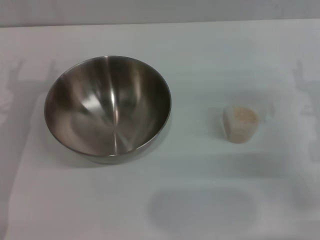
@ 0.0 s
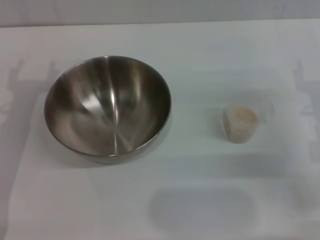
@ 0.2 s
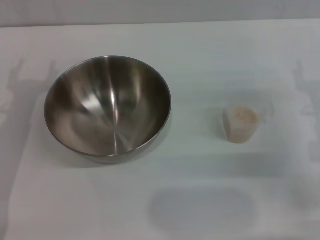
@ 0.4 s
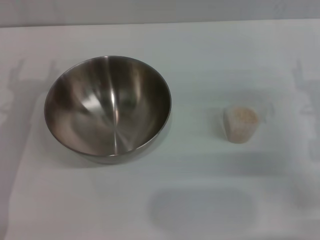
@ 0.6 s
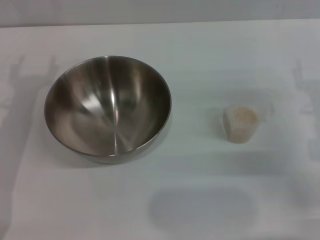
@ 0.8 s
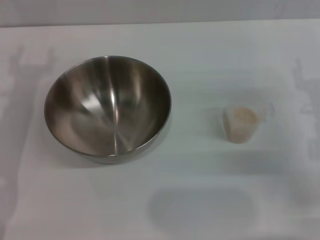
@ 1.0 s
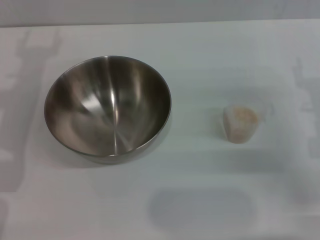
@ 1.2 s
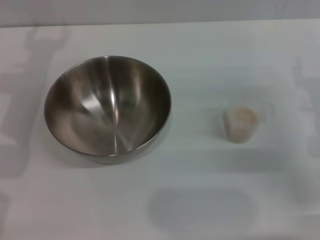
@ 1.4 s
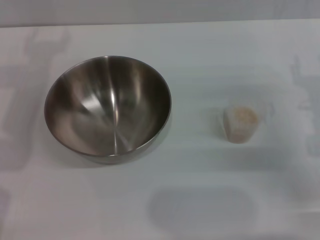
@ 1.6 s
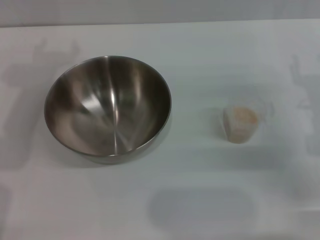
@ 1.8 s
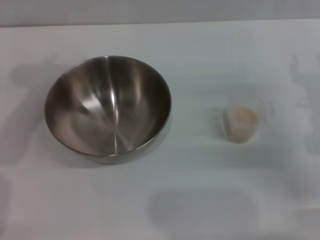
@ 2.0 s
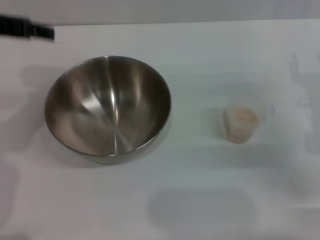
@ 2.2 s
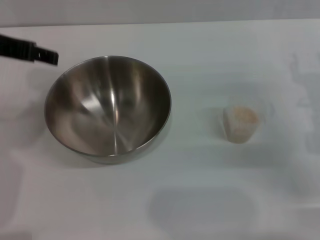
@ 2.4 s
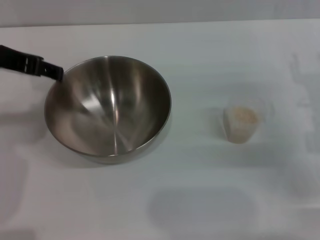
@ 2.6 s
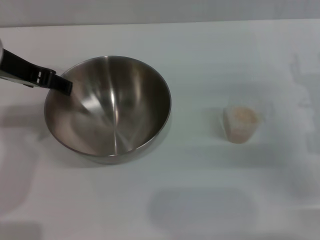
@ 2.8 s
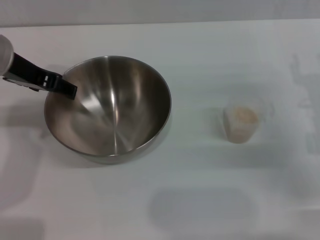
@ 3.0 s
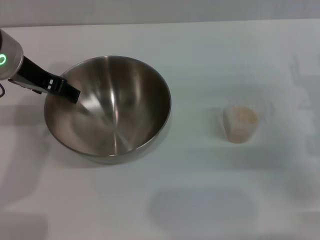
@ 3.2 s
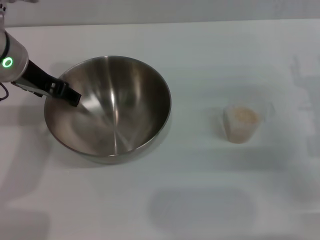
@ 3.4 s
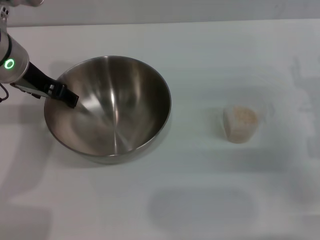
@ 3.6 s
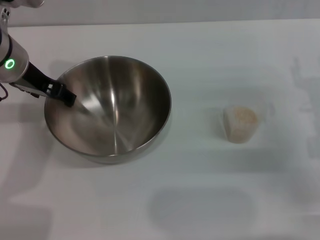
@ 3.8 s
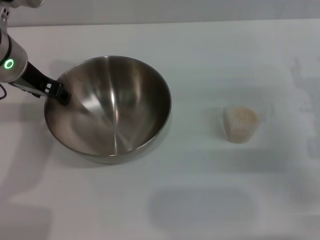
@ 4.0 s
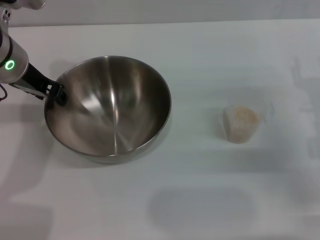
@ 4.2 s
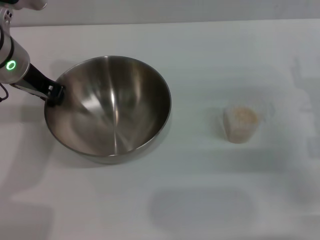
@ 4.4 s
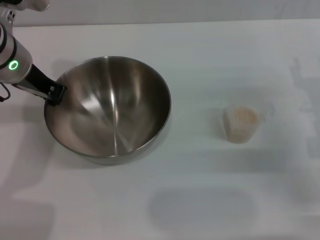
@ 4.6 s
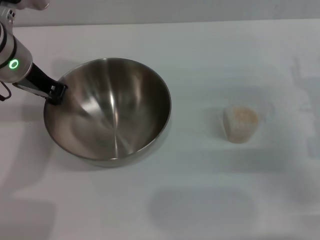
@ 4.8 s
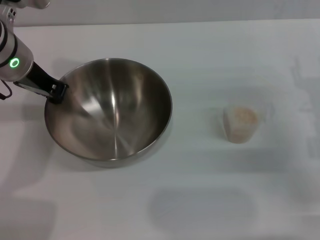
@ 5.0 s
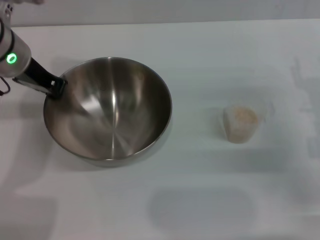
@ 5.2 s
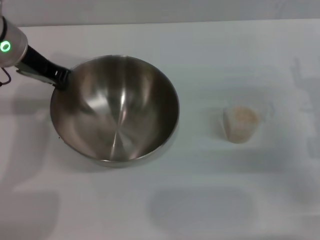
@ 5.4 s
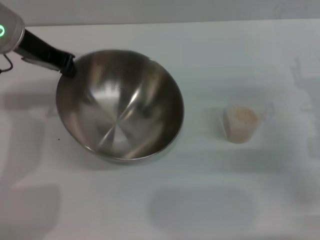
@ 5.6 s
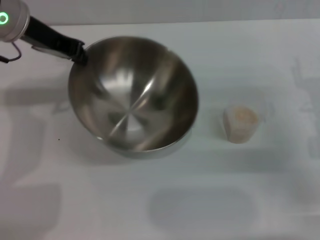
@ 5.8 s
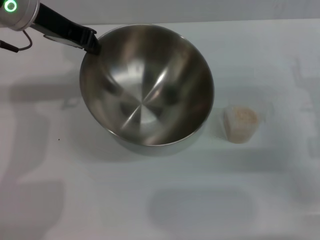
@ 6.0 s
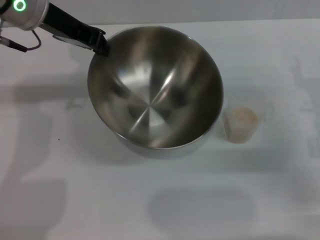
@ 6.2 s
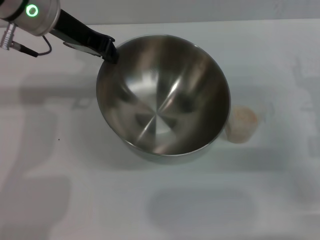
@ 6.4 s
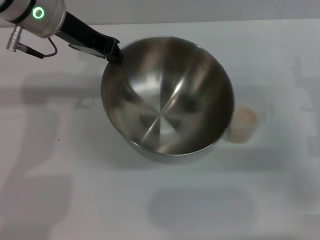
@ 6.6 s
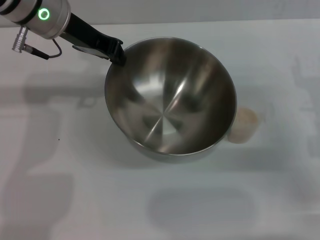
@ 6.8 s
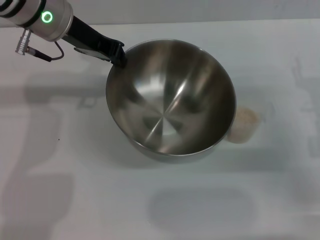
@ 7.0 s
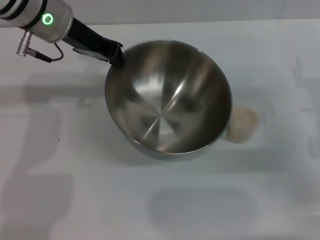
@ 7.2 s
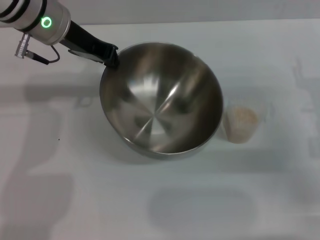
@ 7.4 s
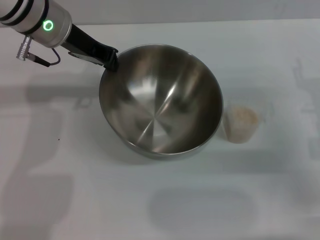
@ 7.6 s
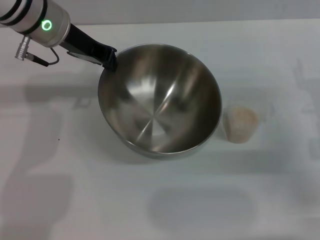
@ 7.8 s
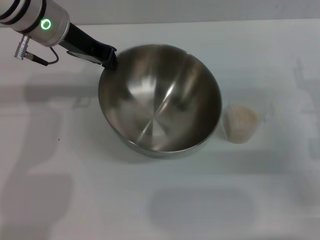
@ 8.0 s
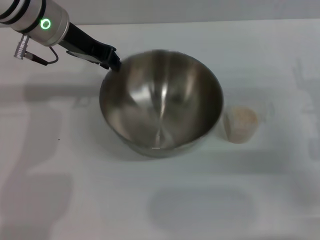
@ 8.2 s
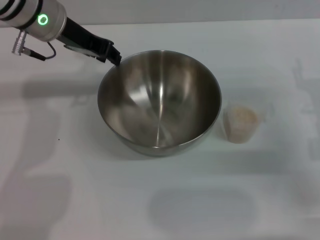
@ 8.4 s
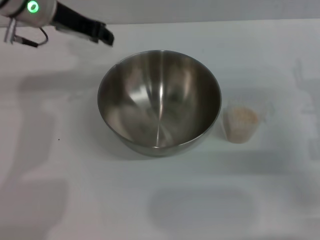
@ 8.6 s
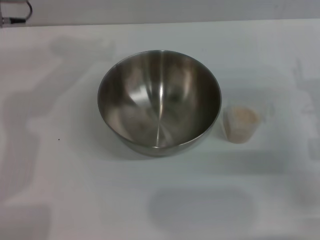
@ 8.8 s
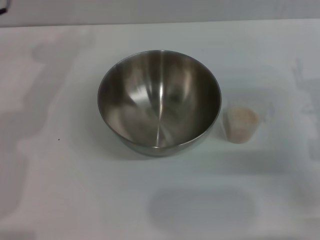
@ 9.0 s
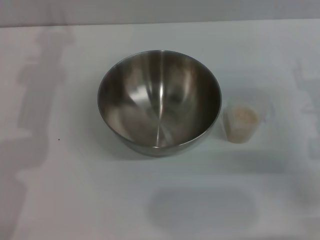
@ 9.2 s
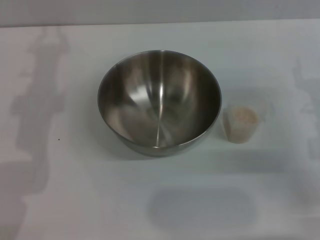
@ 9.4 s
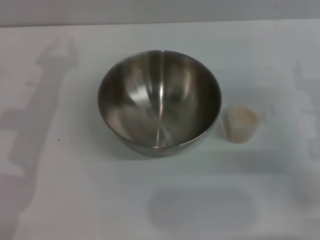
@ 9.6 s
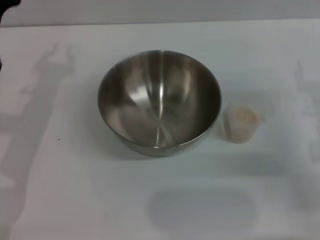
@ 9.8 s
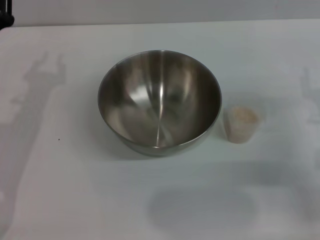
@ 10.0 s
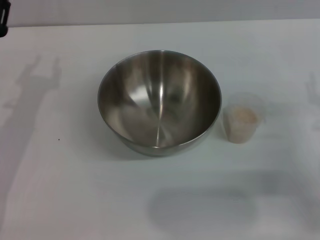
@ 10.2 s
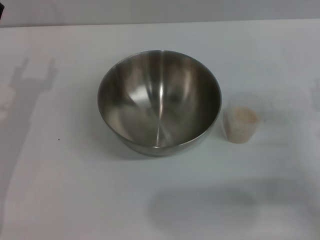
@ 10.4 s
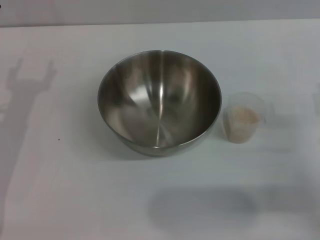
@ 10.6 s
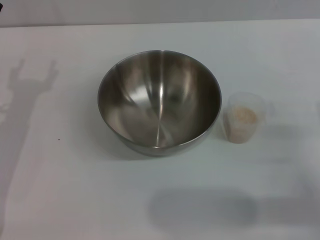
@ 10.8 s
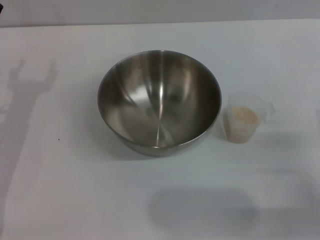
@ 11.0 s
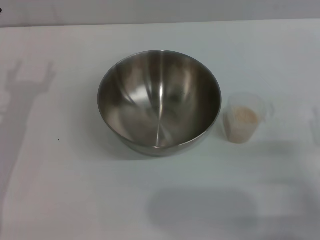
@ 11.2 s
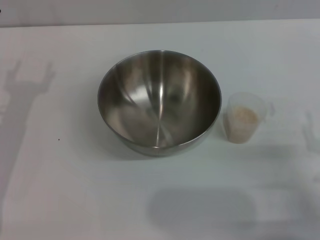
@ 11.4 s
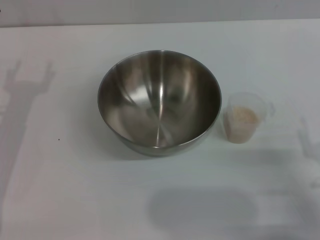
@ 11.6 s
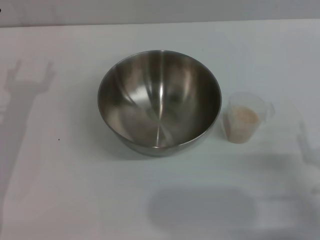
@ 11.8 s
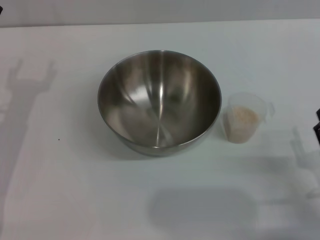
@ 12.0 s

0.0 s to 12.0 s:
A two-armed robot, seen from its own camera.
Task of the whole recording: Place the bowl in the middle of the table with one hand and pour the rice from the grain cup into it with the other hand.
Step, 0.0 to 6.4 s: Pick up the bowl with the left gripper.
Step, 6.6 to 8.4 s: Place the bowl in the center of view with the left gripper.
1.6 to 3.0 s: The left gripper ends up roughly 5 cm from where it was.
3.0 to 4.4 s: There are only small adjustments of the grippers.
4.4 to 6.0 s: The left gripper heads upward, covering roughly 5 cm, and closes its fingers.
6.0 to 7.6 s: The left gripper shifts by roughly 5 cm.
7.6 to 9.0 s: The left gripper is displaced to the left by approximately 5 cm.
9.0 to 10.4 s: The right gripper moves about 5 cm.
10.4 to 12.0 s: The right gripper goes about 10 cm backward.

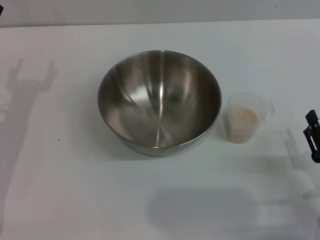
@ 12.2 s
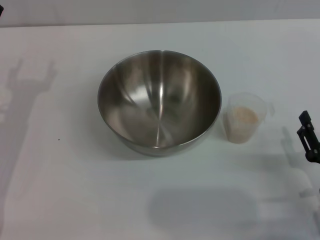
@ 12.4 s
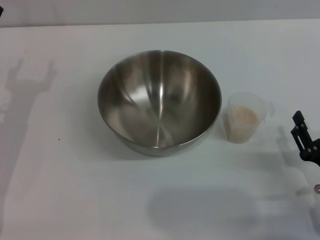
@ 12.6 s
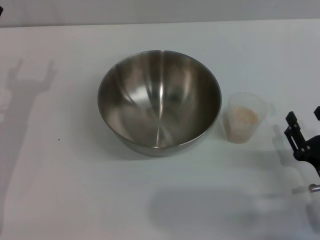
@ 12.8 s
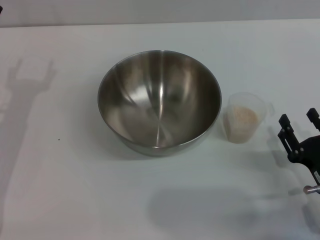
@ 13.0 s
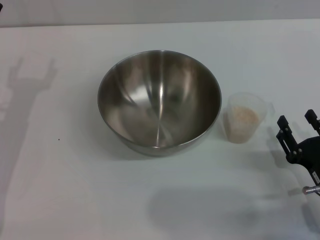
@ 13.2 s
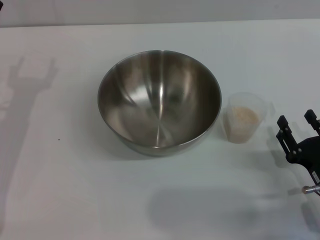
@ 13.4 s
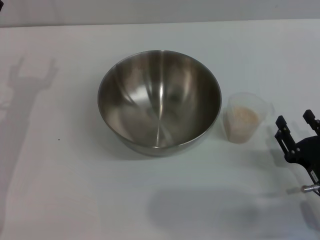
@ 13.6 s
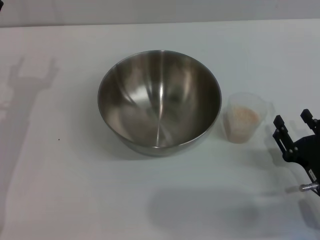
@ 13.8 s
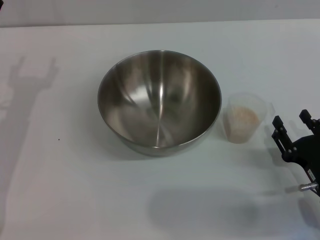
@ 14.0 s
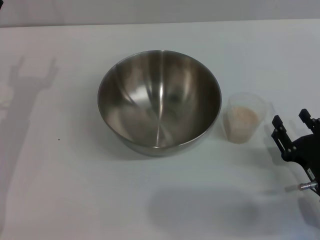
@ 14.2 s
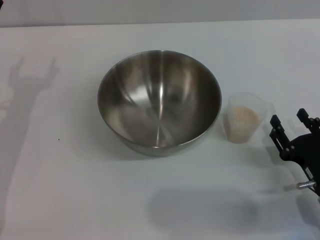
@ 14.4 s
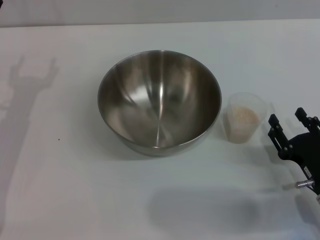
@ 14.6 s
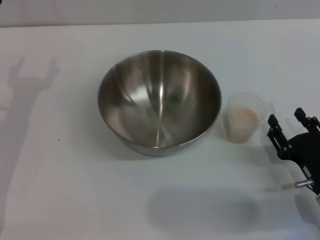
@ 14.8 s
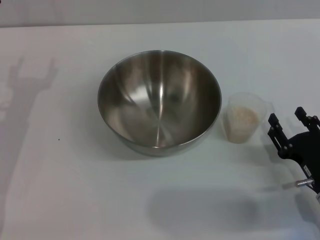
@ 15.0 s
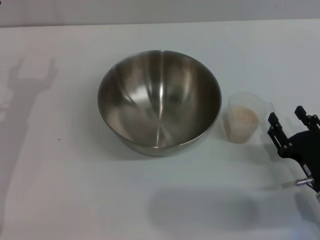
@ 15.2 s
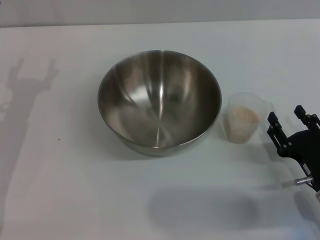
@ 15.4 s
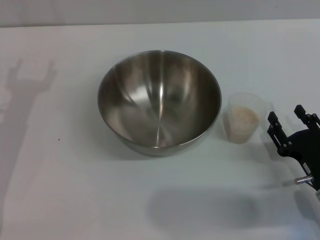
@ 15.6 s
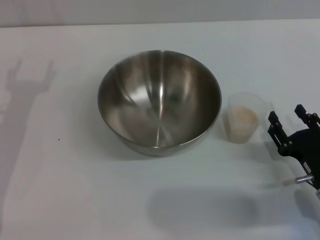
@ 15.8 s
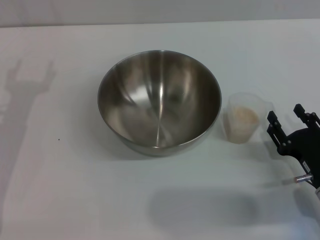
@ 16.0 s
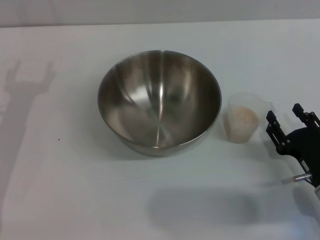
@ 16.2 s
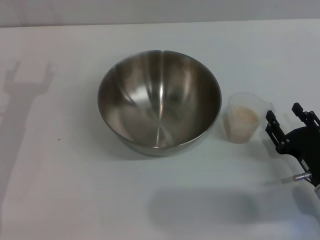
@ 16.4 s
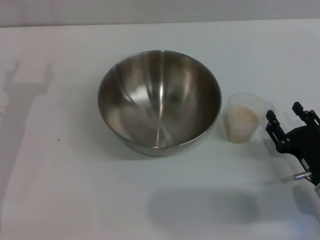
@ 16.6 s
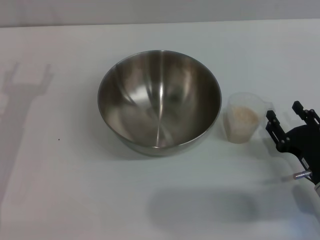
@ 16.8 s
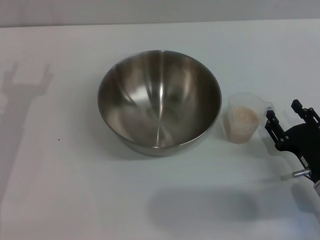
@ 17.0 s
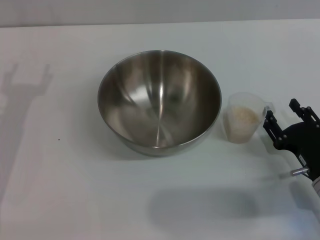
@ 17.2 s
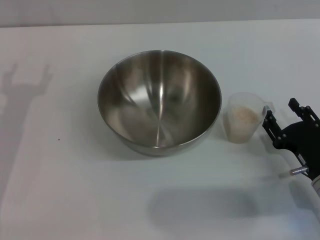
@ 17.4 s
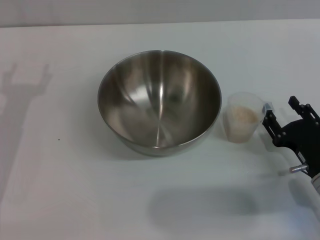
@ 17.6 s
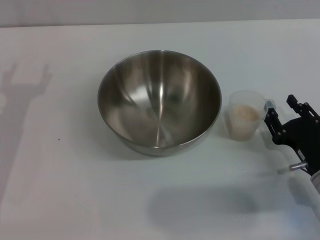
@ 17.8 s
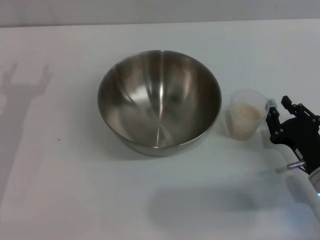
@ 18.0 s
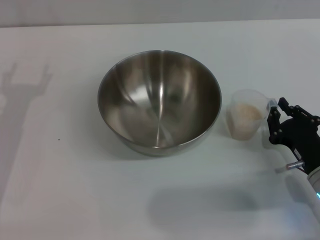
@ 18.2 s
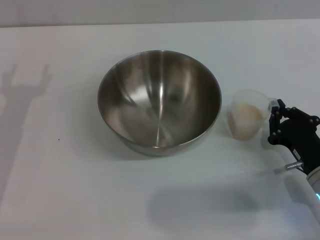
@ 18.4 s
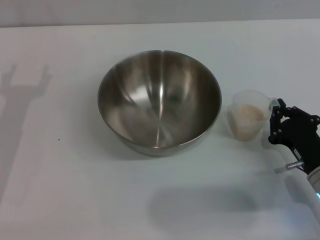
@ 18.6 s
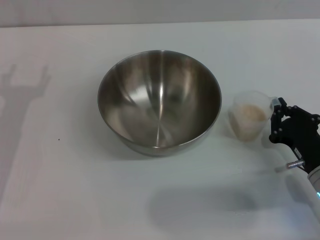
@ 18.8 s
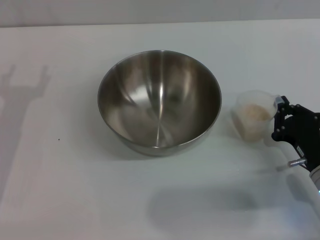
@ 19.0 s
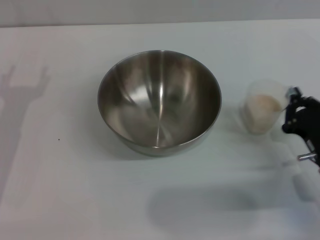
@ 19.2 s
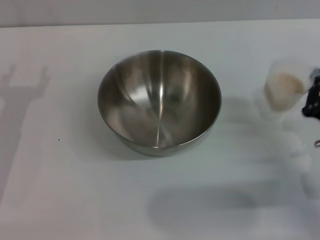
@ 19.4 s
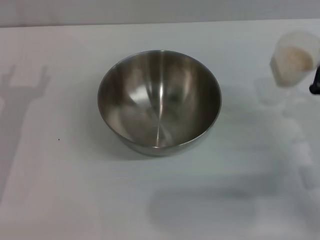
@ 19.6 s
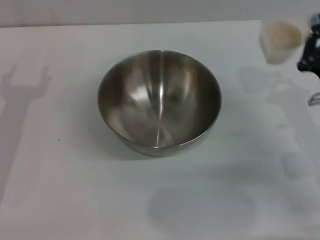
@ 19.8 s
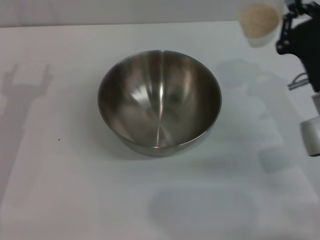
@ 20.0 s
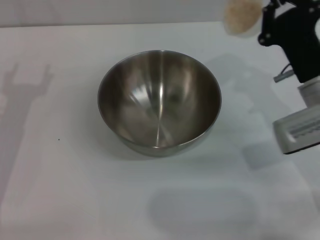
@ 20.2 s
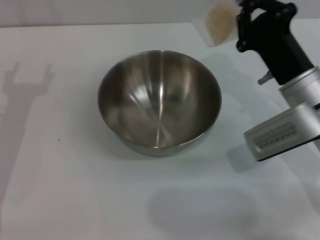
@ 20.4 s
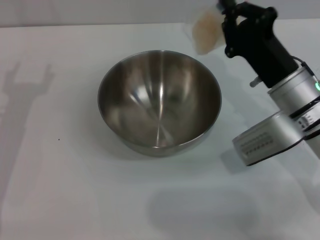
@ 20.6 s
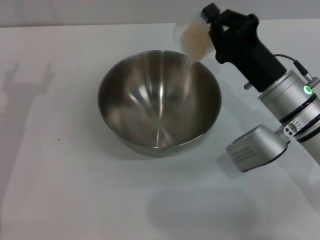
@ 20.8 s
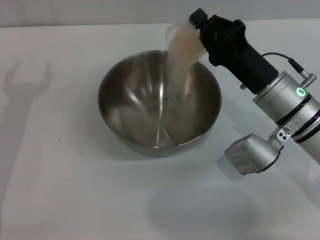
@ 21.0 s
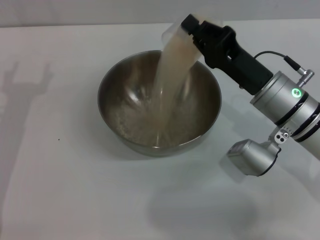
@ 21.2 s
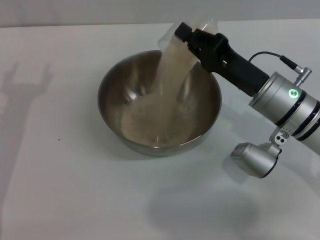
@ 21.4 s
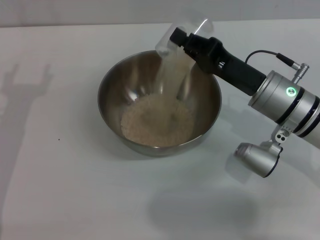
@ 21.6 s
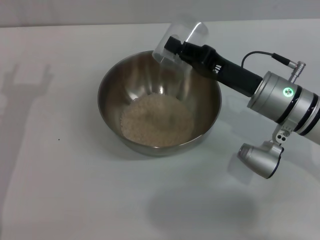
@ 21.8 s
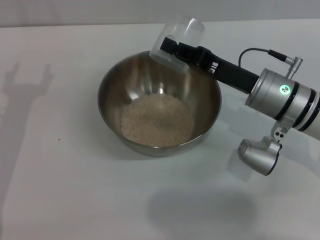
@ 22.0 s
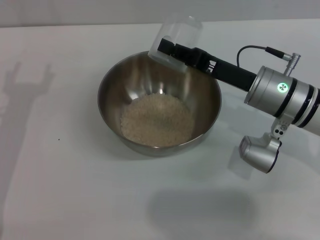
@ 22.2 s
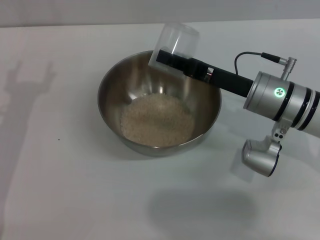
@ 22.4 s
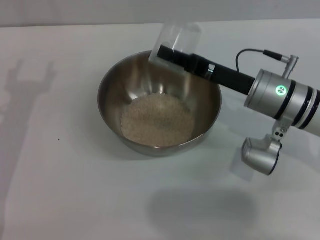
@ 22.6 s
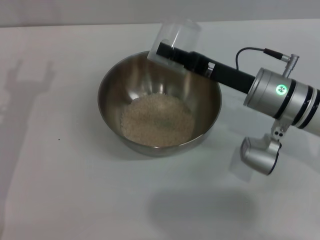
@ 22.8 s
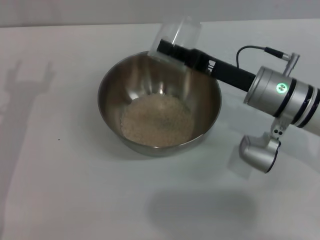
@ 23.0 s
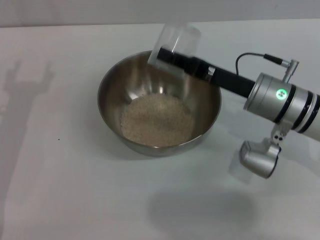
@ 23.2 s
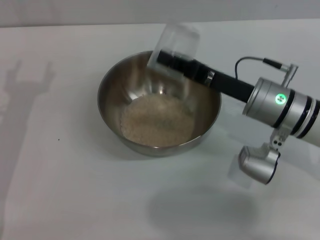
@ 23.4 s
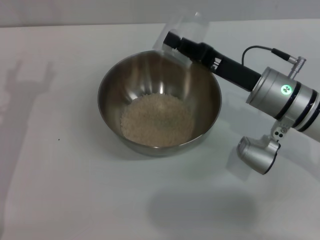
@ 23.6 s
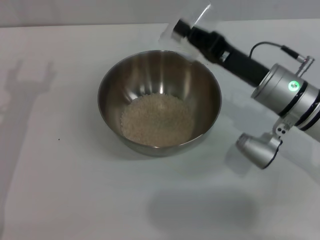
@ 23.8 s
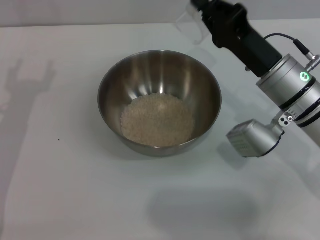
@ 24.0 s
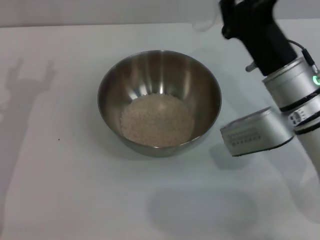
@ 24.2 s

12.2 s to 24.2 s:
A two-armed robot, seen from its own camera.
Task of the whole recording: Place the bowl in the middle of the table with one hand and pour the rice from the grain cup into it with the other hand.
Step, 12.2 to 19.8 s: Pick up the cup with rice in it with the right gripper.
Step, 20.0 to 23.4 s: Pour the rice from the cup into the bowl with the right gripper.
12.2 to 13.8 s: The grippers move only a little.
13.8 to 15.2 s: Neither gripper changes place.
15.2 to 16.6 s: Both grippers stay about where they are.
16.6 to 18.2 s: The right gripper closes.
18.2 to 19.8 s: The right gripper heads upward and forward, covering roughly 10 cm, and closes.
19.8 to 21.2 s: The right gripper is displaced to the left by about 10 cm.
